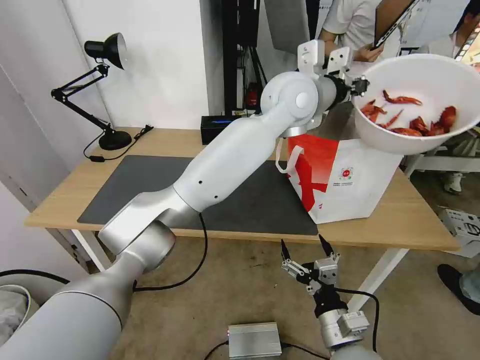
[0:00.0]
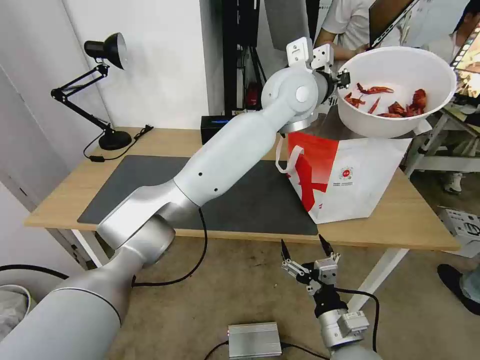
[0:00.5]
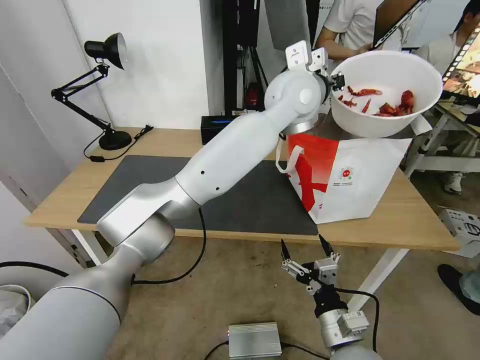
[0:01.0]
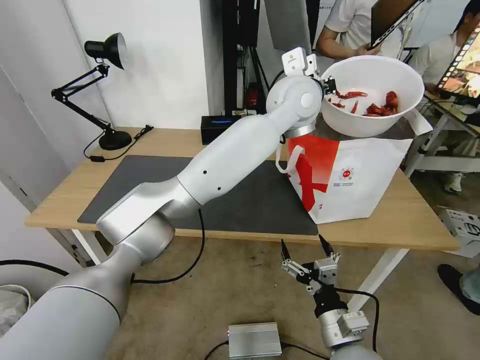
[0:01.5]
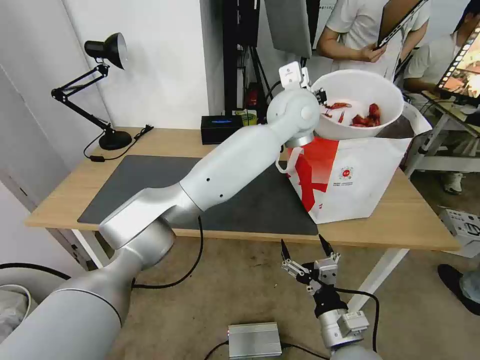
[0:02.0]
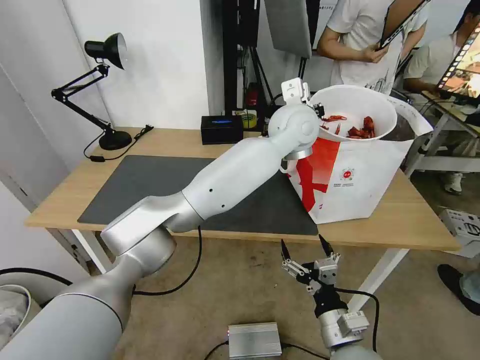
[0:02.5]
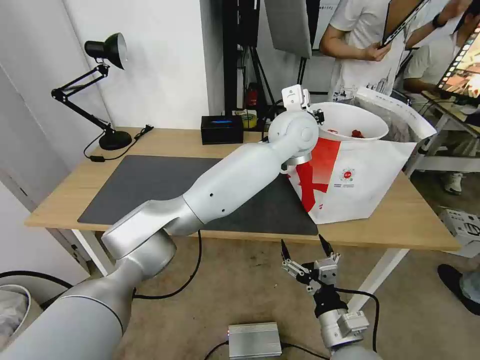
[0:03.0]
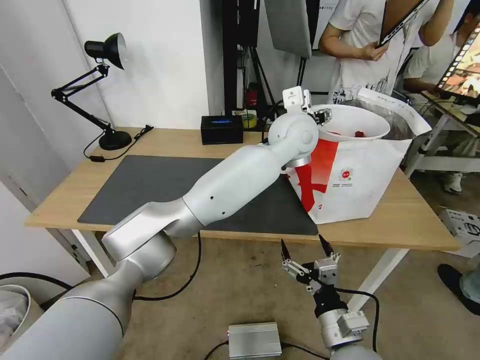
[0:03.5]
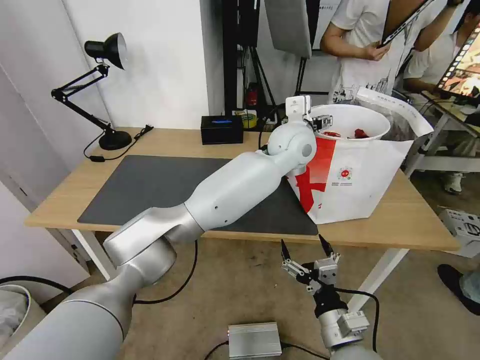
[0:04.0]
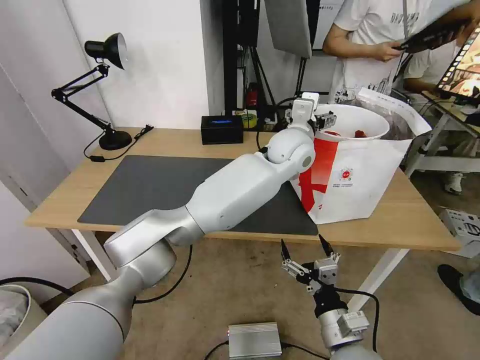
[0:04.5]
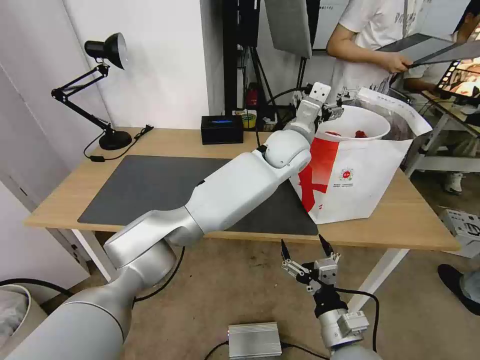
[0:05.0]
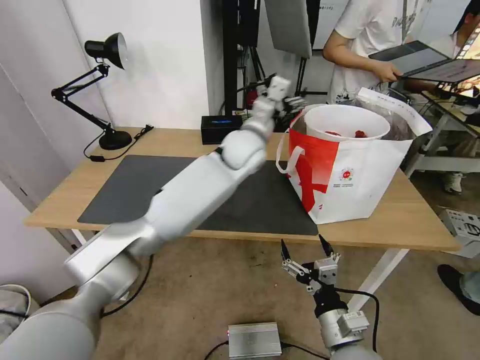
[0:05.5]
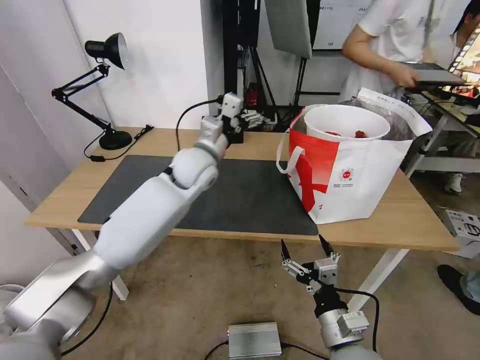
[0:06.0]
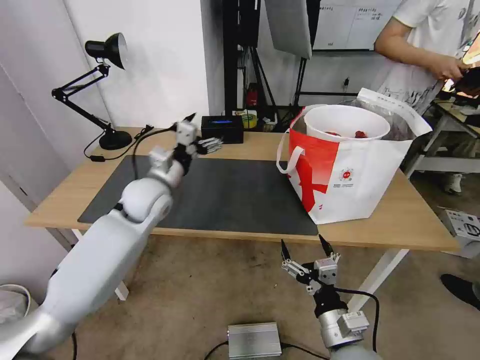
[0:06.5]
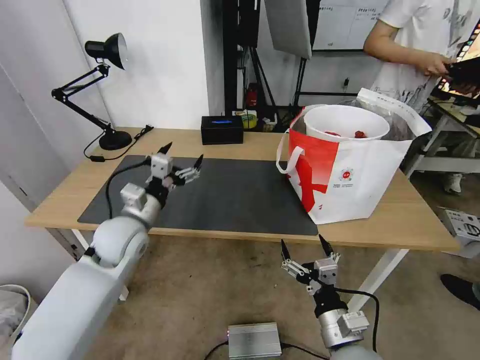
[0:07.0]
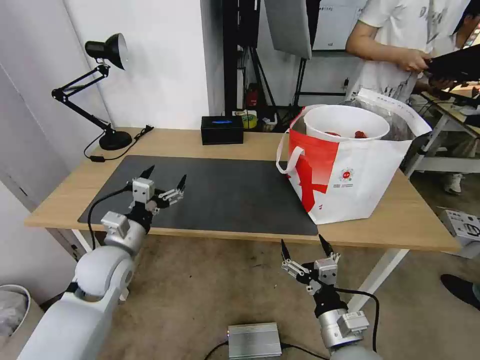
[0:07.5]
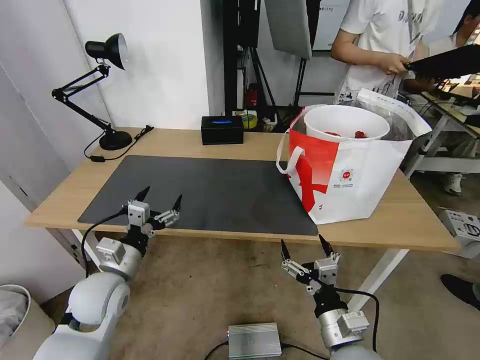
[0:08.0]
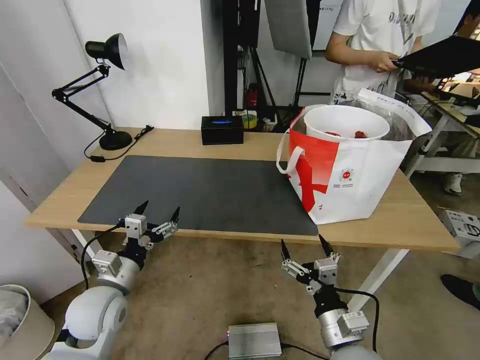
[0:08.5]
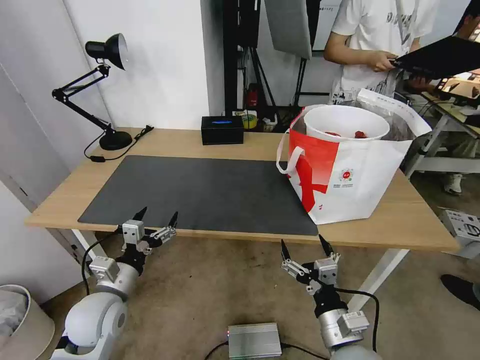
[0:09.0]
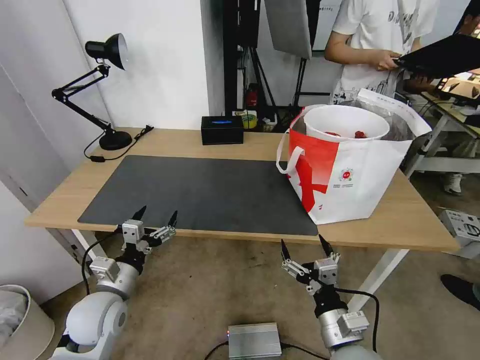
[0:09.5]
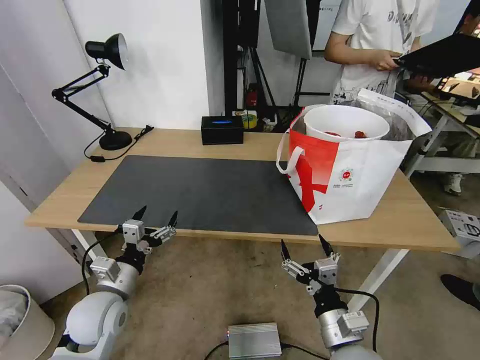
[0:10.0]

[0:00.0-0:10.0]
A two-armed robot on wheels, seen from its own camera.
Task of the whole recording: Pick up the trash from the table and place it into the takeout bag.
2.0 to 4.0 s: The left gripper shifts roughly 5 cm downward, and opens up.
4.0 to 6.0 s: The left gripper travels to the left by about 20 cm.
6.0 to 8.0 s: The left gripper goes approximately 30 cm backward, to the left and downward.
8.0 to 10.0 s: There are only small adjustments of the grippers.

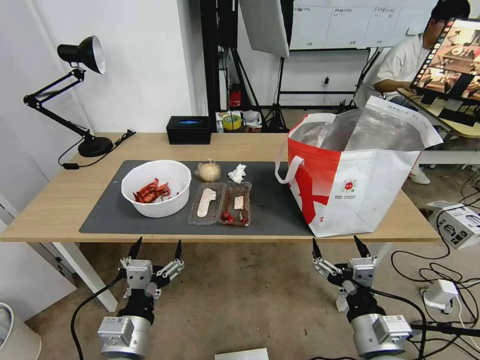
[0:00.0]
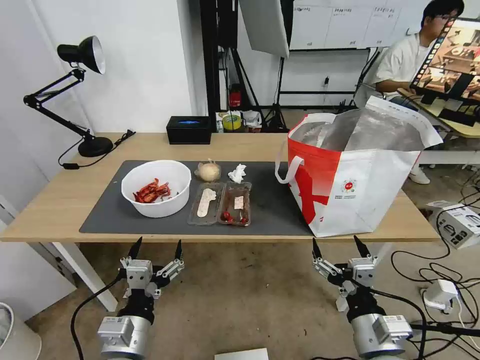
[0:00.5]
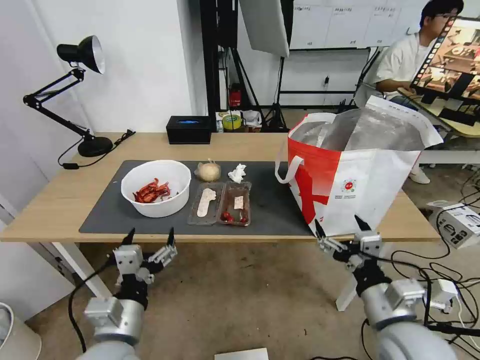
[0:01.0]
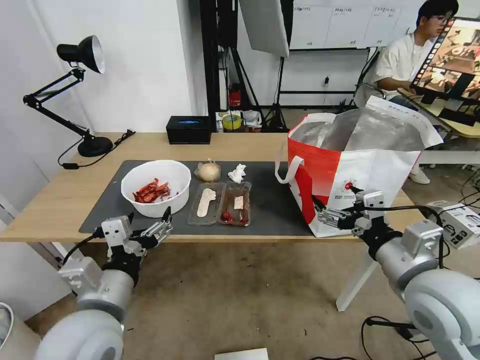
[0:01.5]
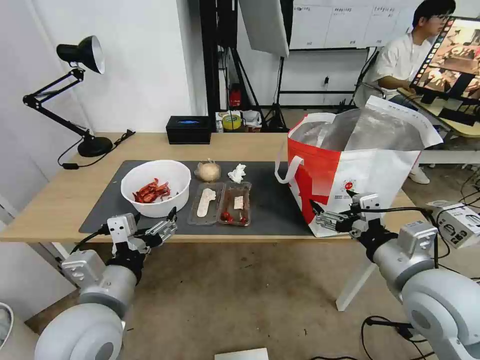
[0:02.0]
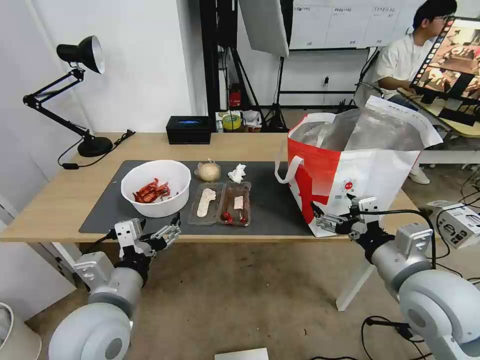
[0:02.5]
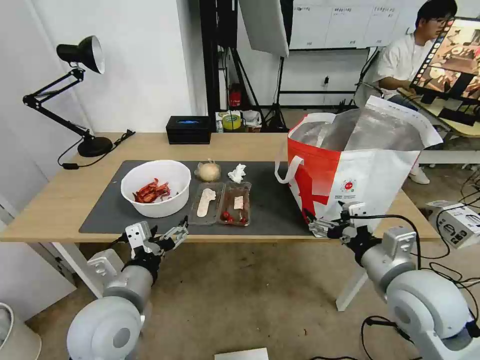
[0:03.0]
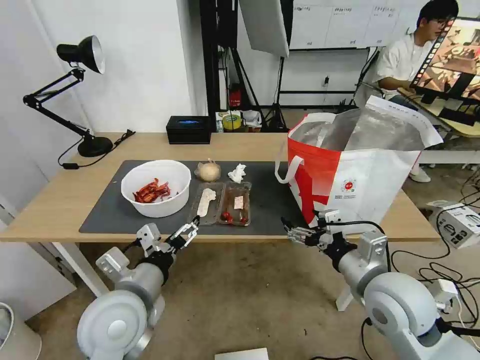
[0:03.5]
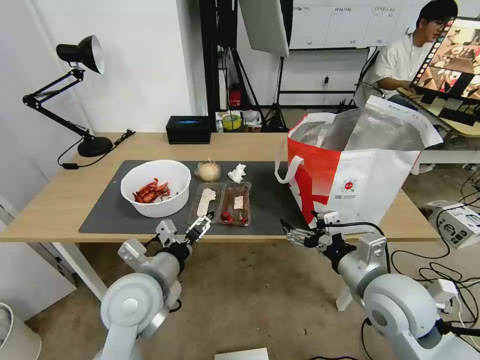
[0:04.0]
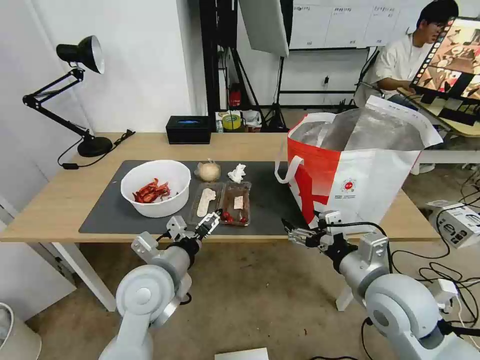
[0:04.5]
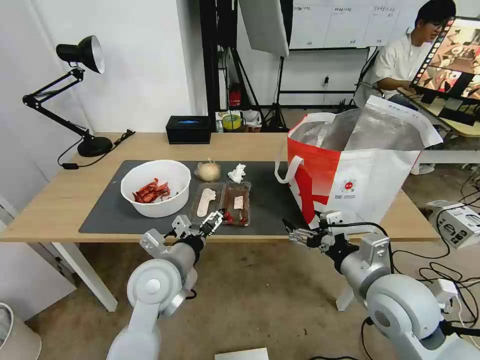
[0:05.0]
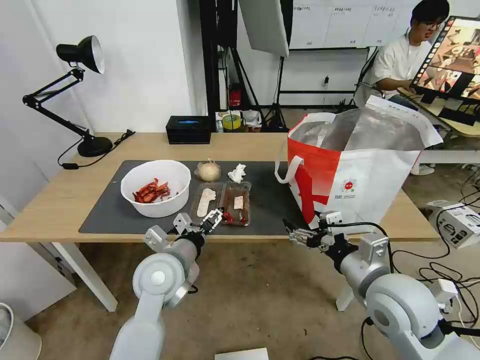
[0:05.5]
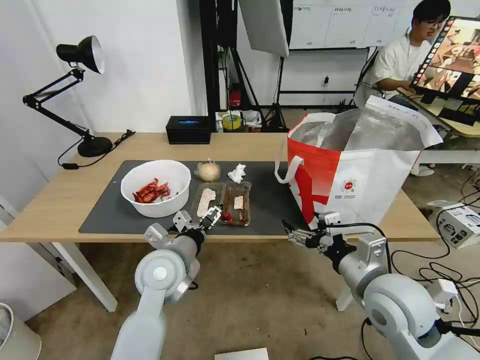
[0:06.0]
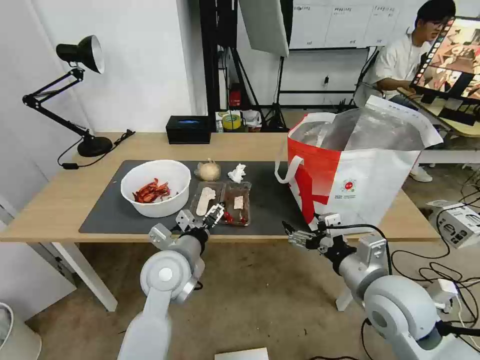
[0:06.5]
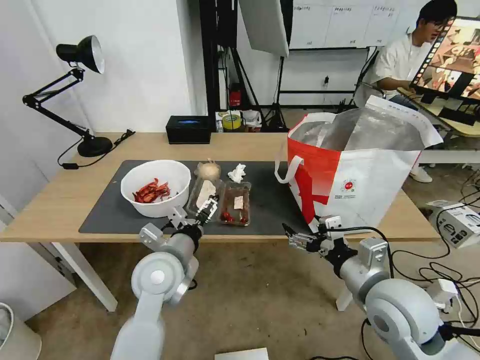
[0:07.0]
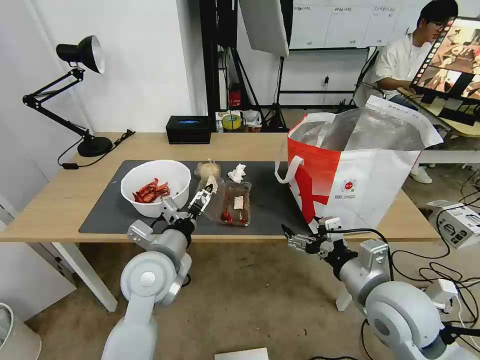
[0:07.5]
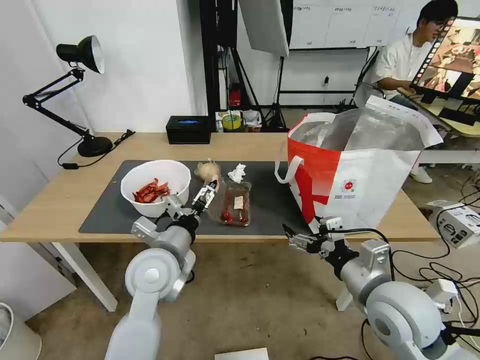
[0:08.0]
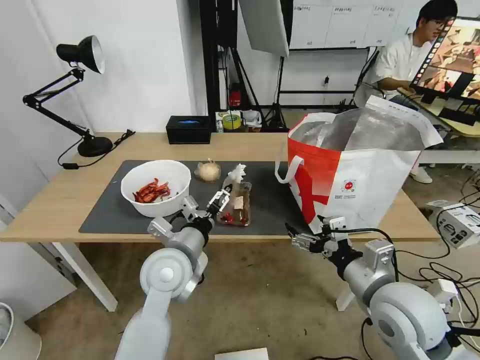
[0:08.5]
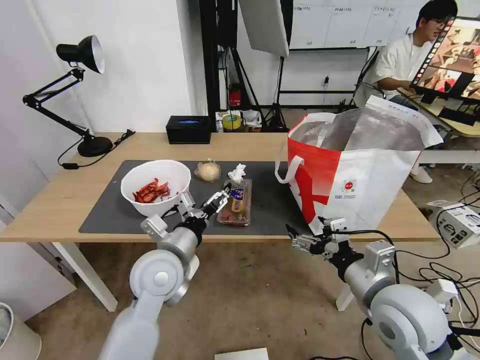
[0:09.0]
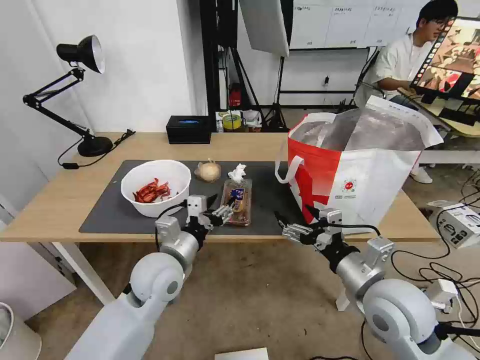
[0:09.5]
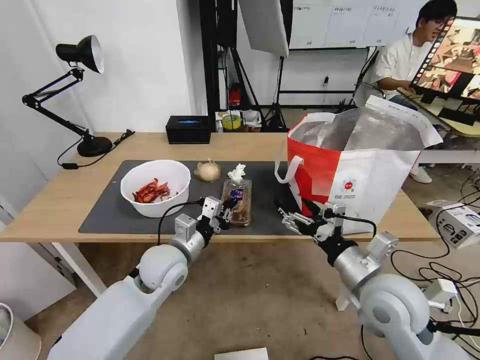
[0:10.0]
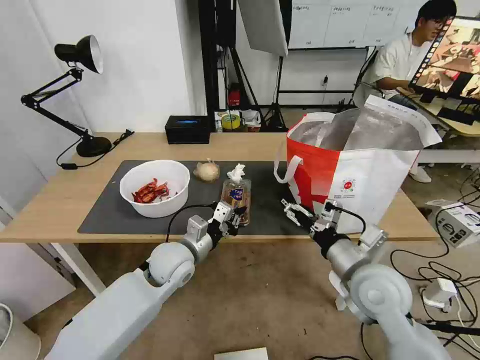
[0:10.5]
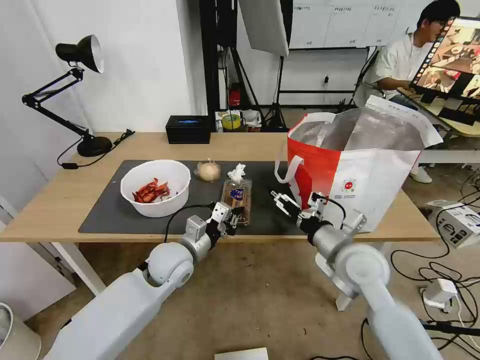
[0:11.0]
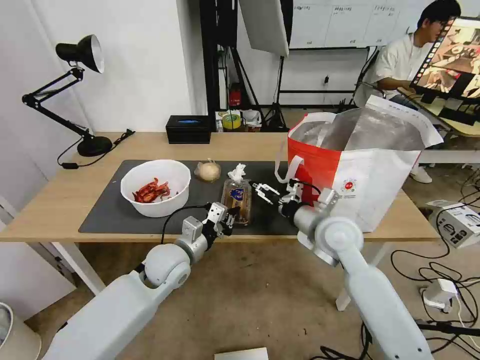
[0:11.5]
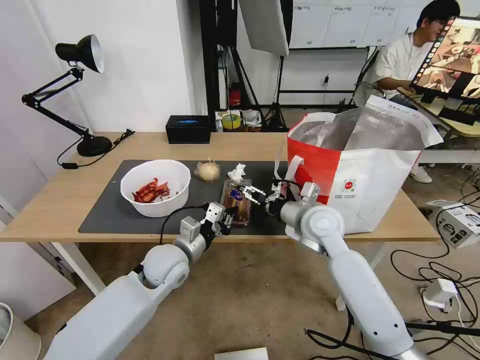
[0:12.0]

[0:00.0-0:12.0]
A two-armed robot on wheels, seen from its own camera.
Task of the whole recording: Pick up the trash from the table and place it into the takeout bag.
2.0 to 4.0 s: The left gripper goes approximately 5 cm forward. The right gripper moves downward, roughly 5 cm.
4.0 to 6.0 s: The left gripper is displaced forward by some 5 cm.
6.0 to 8.0 s: The grippers make only small movements.
8.0 to 10.0 s: The left gripper shifts about 5 cm downward, and closes up.
10.0 to 12.0 s: The right gripper is displaced forward and to the left by approximately 20 cm.

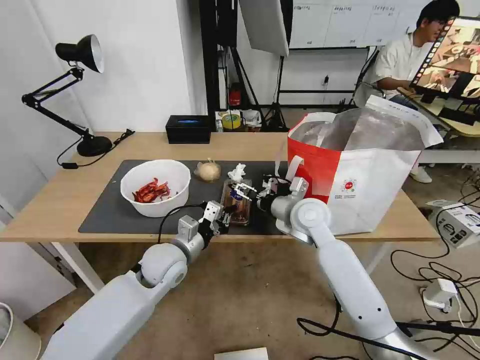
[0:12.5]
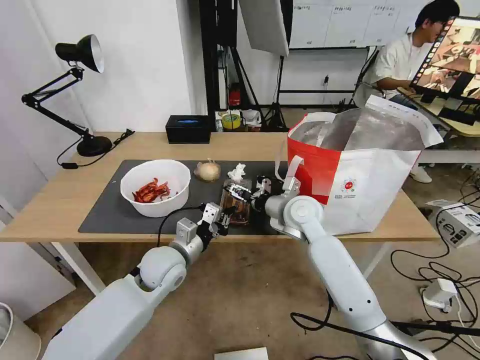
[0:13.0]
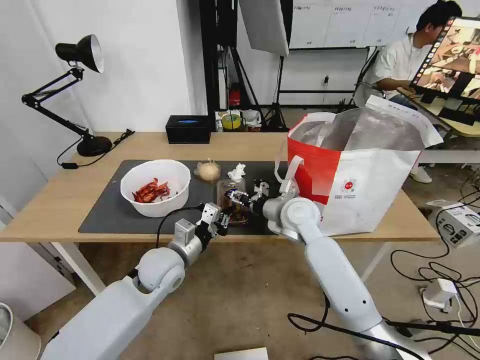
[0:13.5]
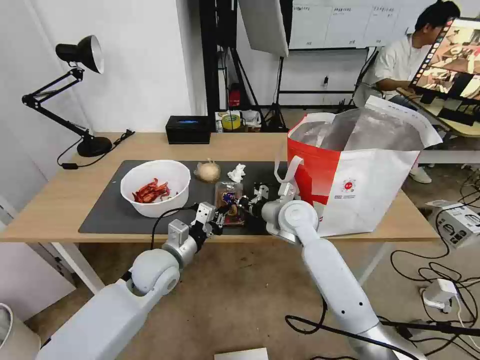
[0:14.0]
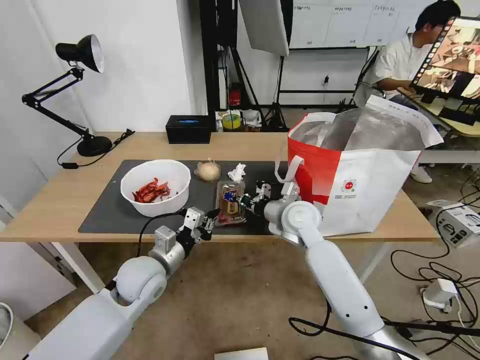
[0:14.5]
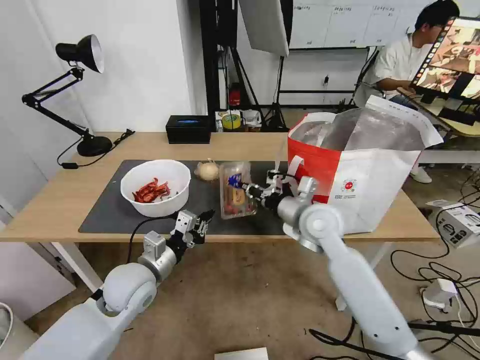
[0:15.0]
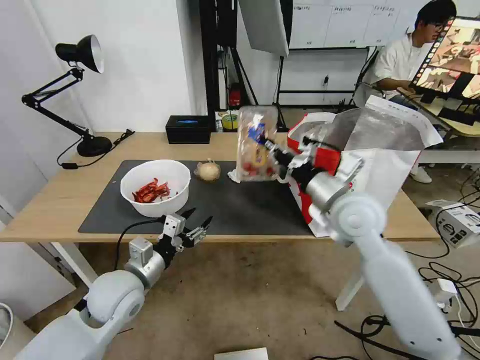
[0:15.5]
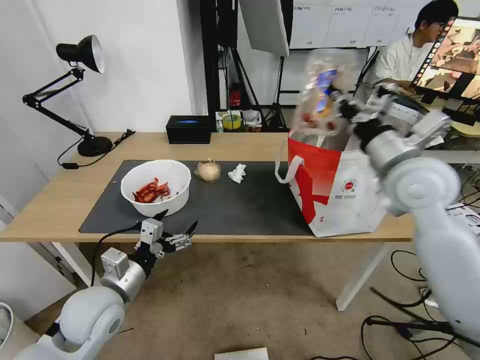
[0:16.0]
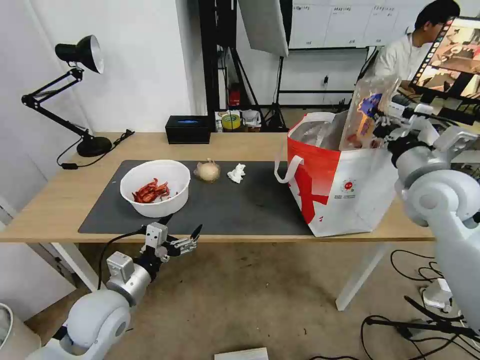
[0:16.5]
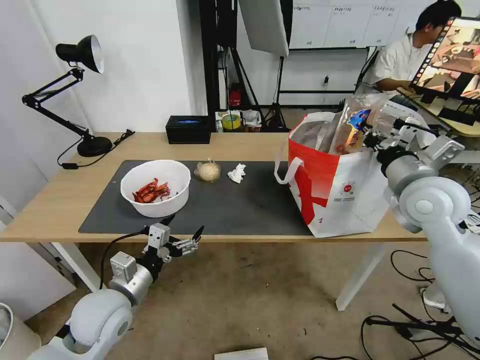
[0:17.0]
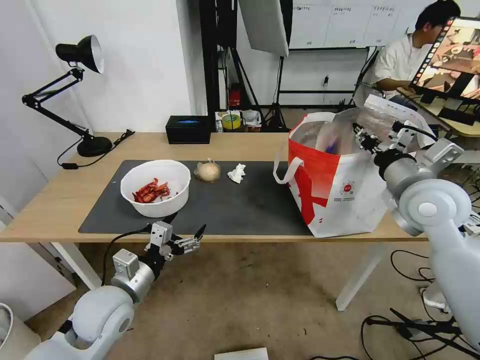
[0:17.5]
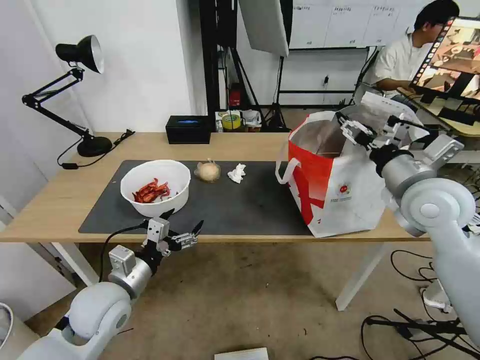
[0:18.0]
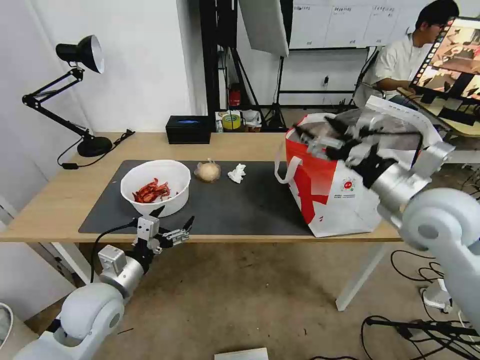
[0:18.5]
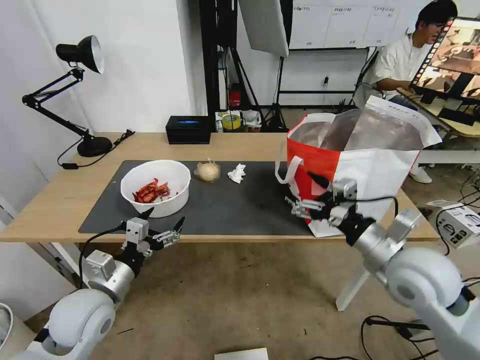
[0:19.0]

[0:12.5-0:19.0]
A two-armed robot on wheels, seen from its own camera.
Task of the whole recording: Pick up the trash from the table and place it into the takeout bag.
12.5 to 14.5 s: The left gripper moves about 5 cm. Meanwhile the right gripper closes up.
14.5 to 17.0 s: The right gripper goes approximately 25 cm to the right and upward; the left gripper shifts about 10 cm backward, and opens its fingers.
17.0 to 19.0 s: The right gripper travels backward and downward by approximately 10 cm, and opens up.
